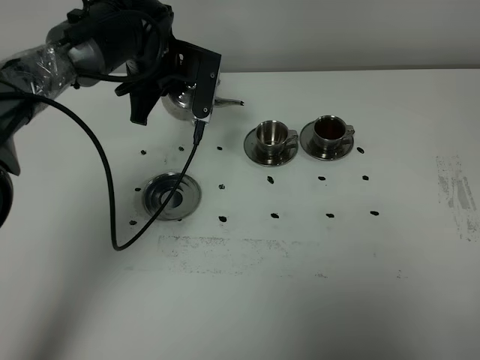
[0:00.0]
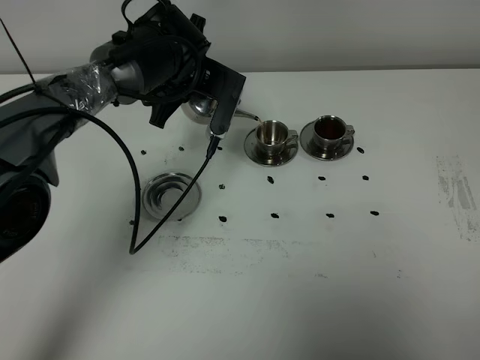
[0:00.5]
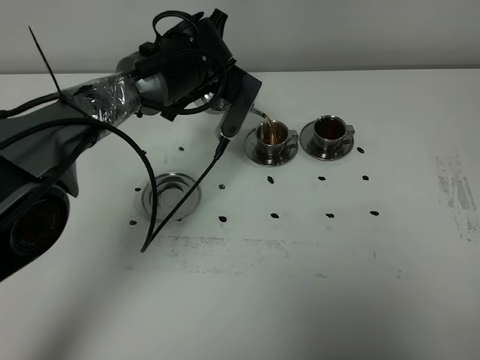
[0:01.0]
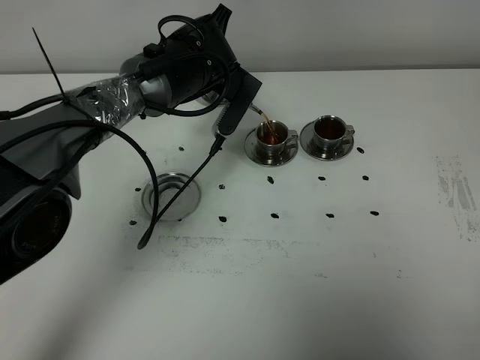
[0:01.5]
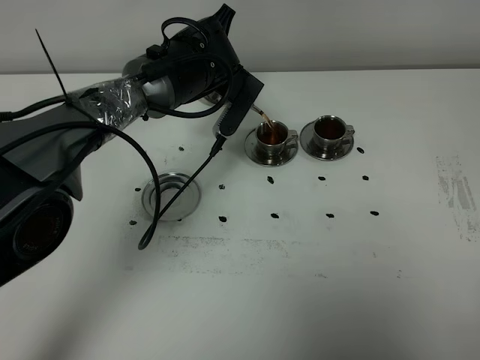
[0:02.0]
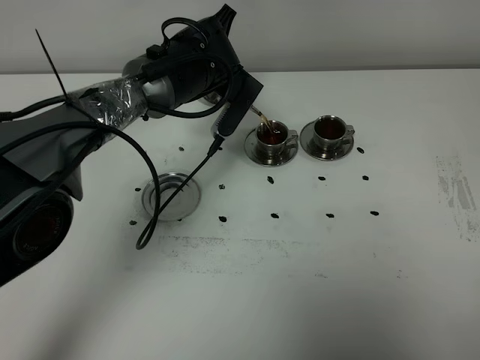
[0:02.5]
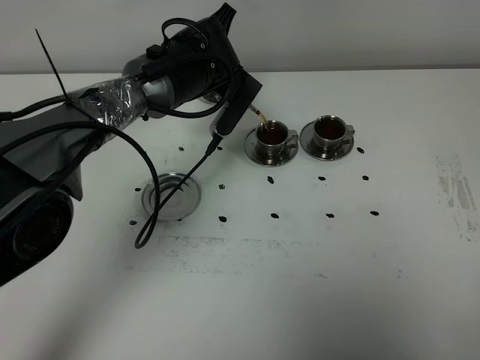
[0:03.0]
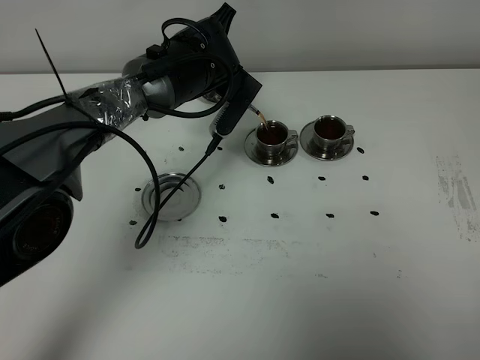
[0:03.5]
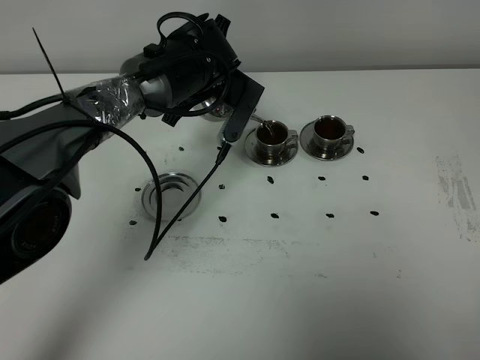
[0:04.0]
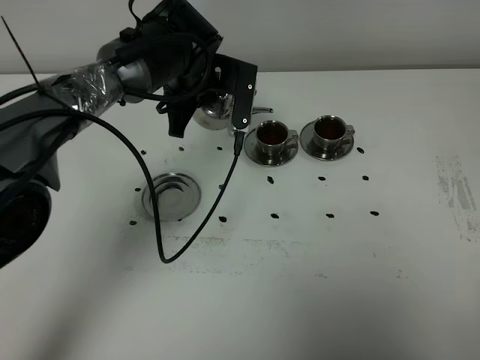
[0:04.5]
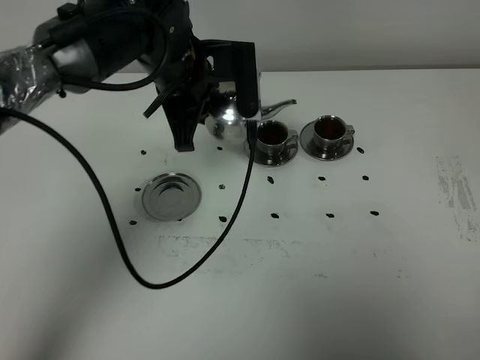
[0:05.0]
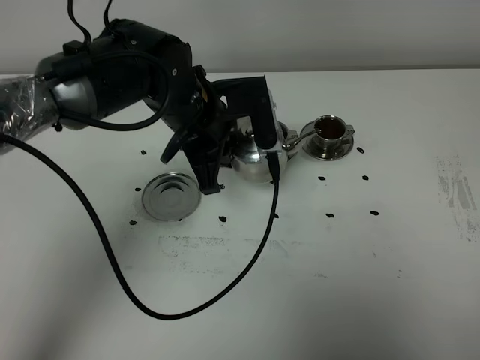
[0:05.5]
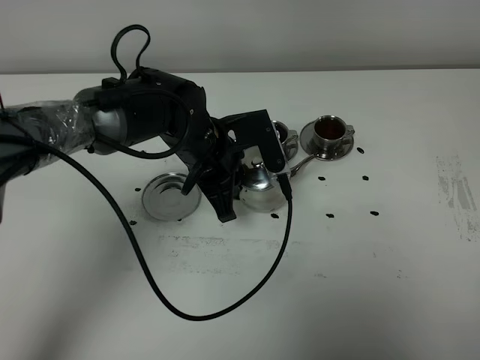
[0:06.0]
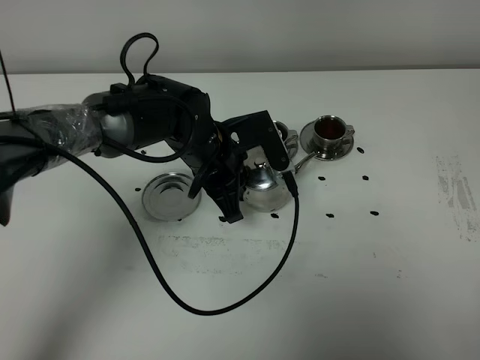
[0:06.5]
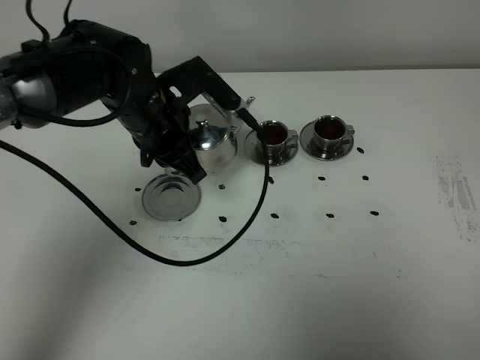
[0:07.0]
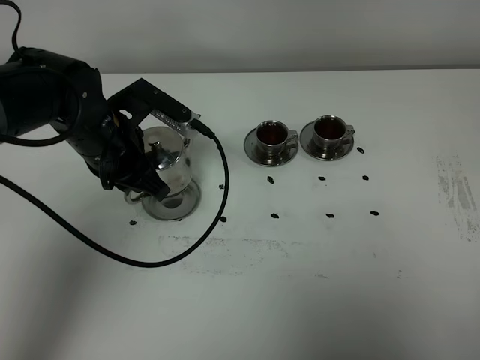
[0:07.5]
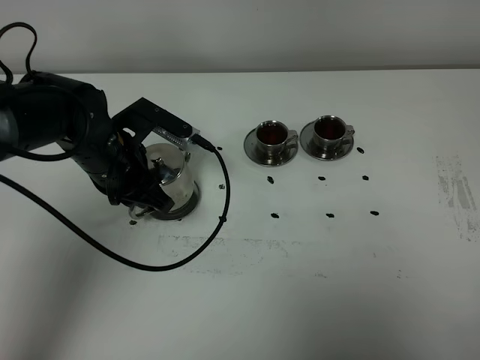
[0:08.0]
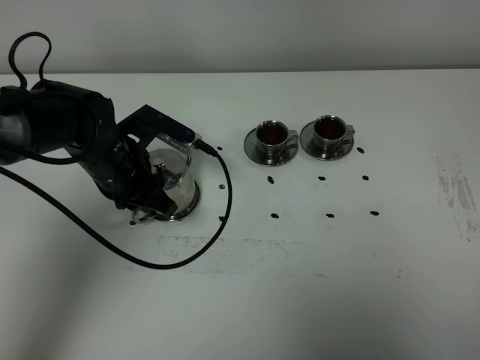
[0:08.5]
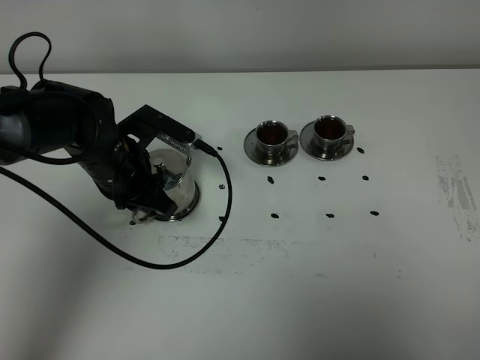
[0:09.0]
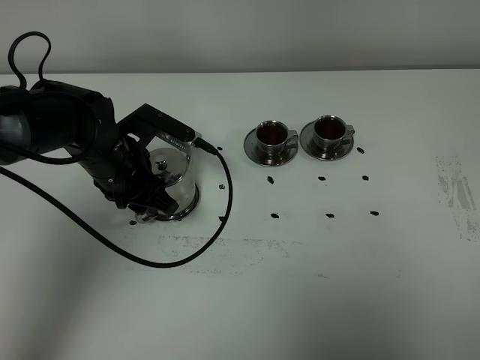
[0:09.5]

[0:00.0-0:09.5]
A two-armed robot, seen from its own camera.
Task of the whole recording: grasp the stainless steel teapot and pour the tea into the two stainless steel teacups one by one, put the stainless steel teapot back in its original place.
Step, 0:00.0 to 0:04.0: Pour tea into the teacup with the left gripper.
0:00.0 to 0:02.0: The left gripper goes approximately 5 cm to the right.
0:02.0 to 0:04.0: The grippers stay close to where they were, moving slightly.
0:04.0 to 0:05.5: The left gripper heads backward, covering approximately 10 cm.
0:05.5 to 0:07.5: The left gripper moves to the left, approximately 10 cm.
0:07.5 to 0:09.5: The left gripper opens up.

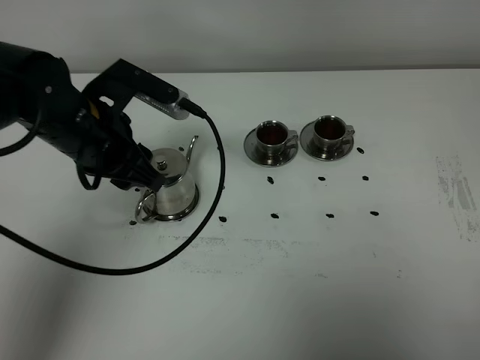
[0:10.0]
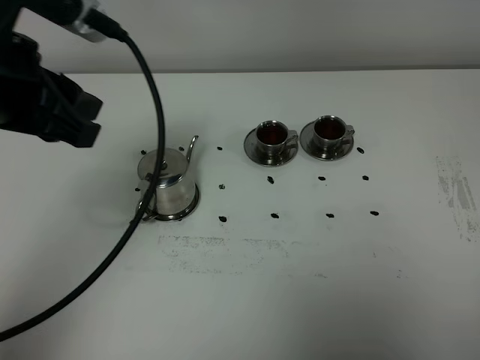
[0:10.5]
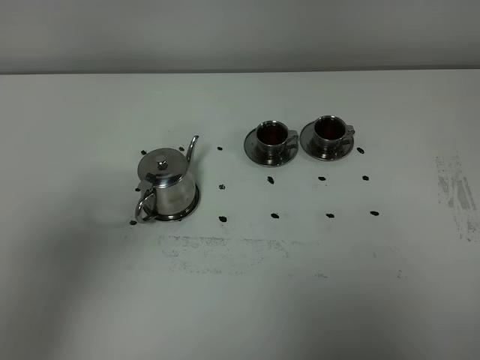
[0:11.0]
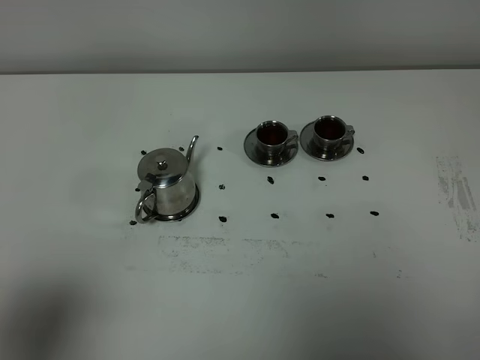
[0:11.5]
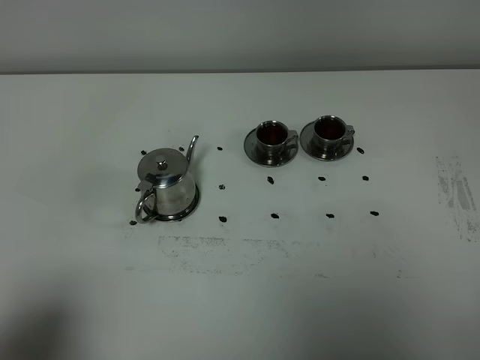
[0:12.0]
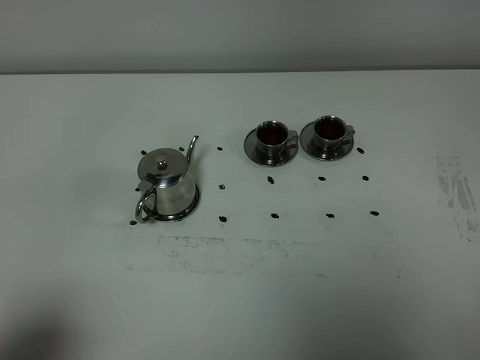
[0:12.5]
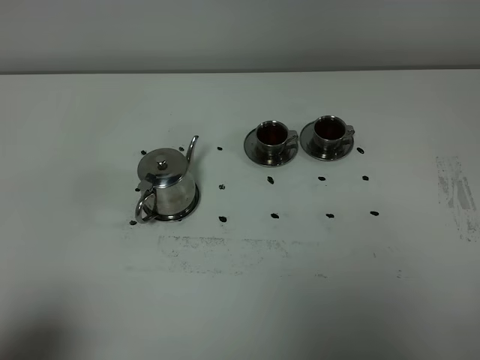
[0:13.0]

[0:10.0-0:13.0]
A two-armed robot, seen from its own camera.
Task of the whole recording: grasp the stainless steel teapot and pour the tea into the two stainless steel teacups one by one, put the stainless steel teapot back in its original place.
0:10.0 to 0:11.5: The left gripper shifts roughly 35 cm backward and to the left.
0:11.5 to 0:13.0: The left gripper travels downward by roughly 10 cm.
